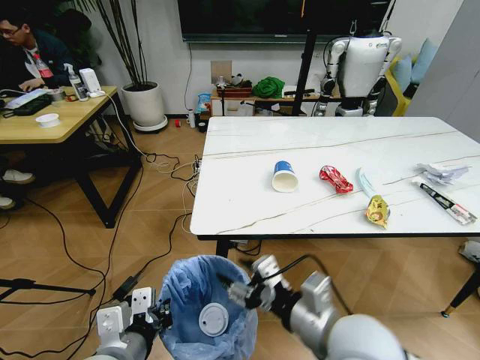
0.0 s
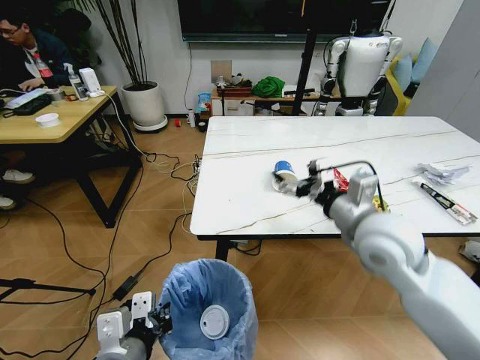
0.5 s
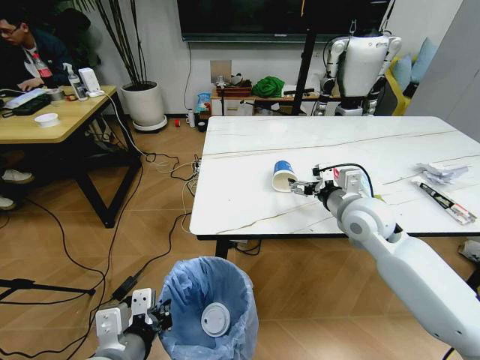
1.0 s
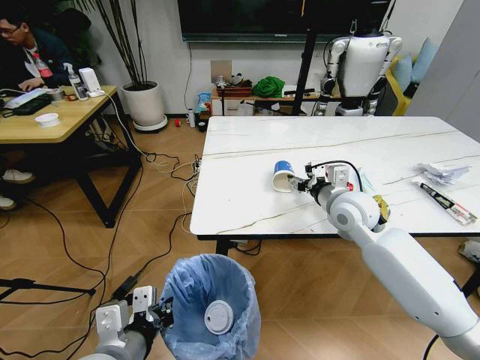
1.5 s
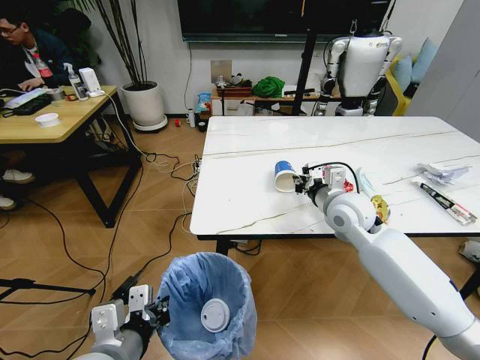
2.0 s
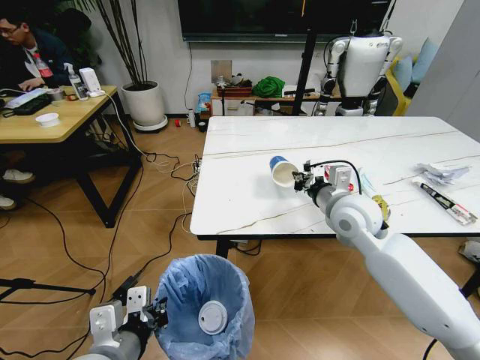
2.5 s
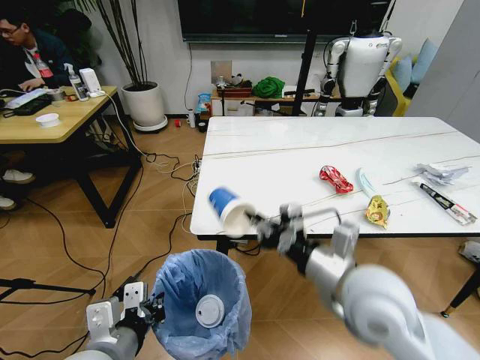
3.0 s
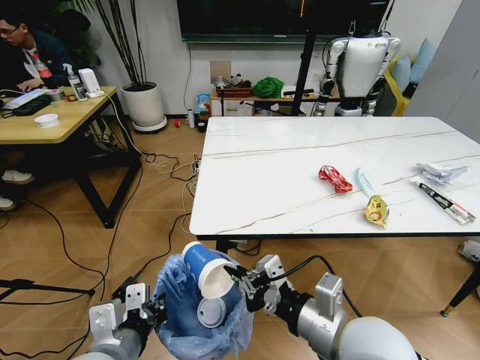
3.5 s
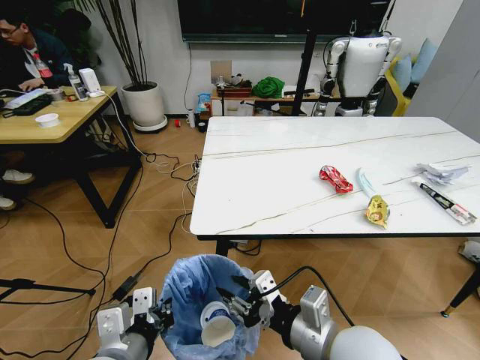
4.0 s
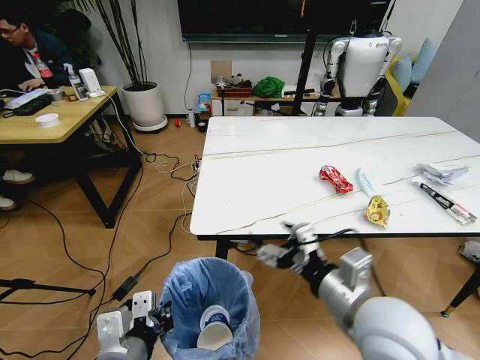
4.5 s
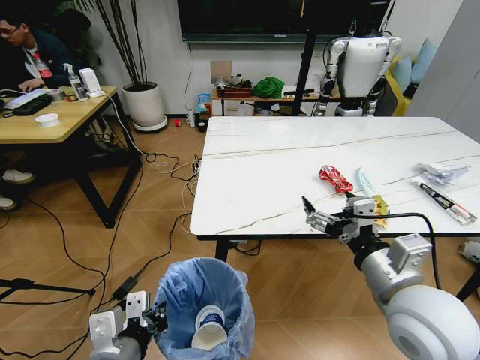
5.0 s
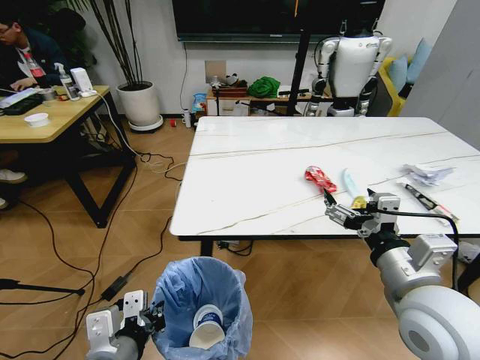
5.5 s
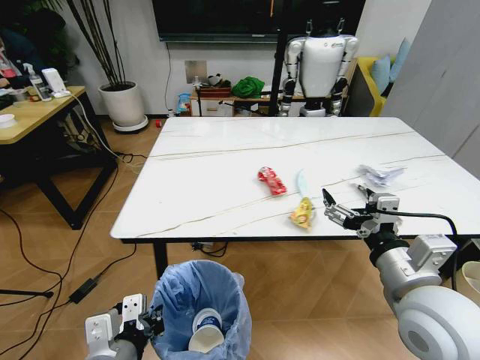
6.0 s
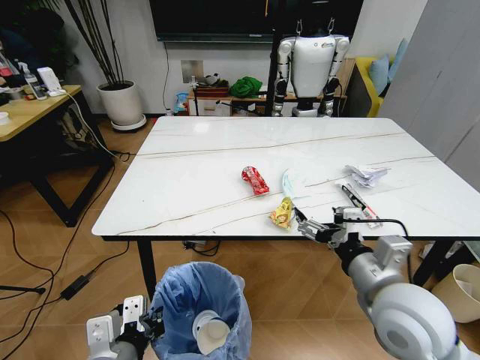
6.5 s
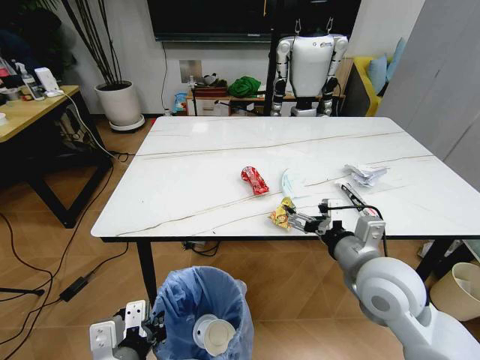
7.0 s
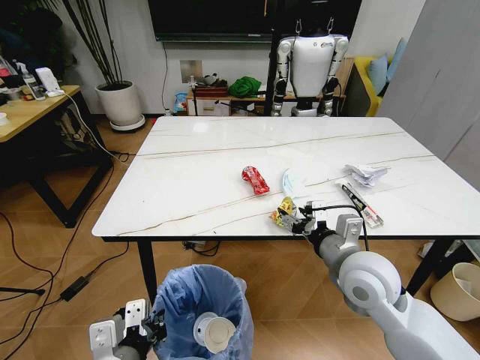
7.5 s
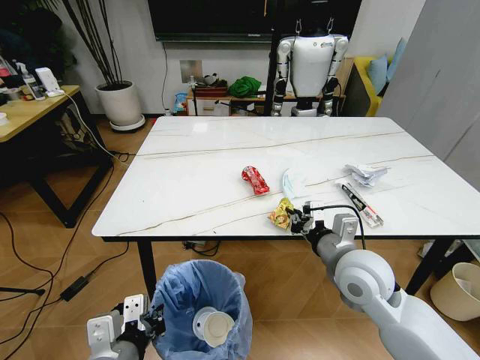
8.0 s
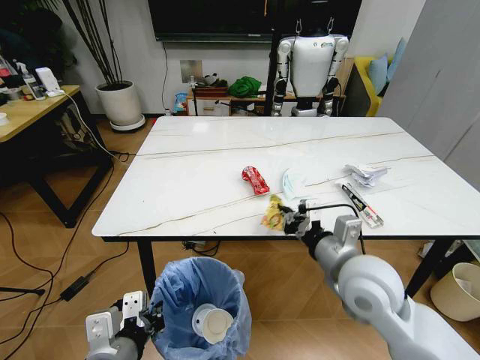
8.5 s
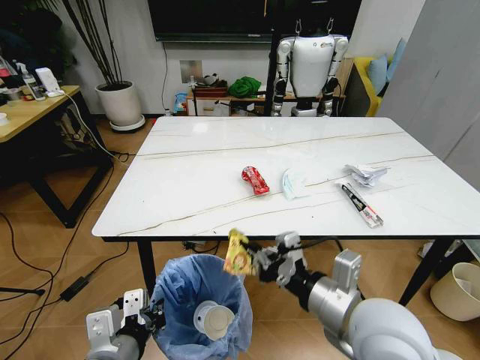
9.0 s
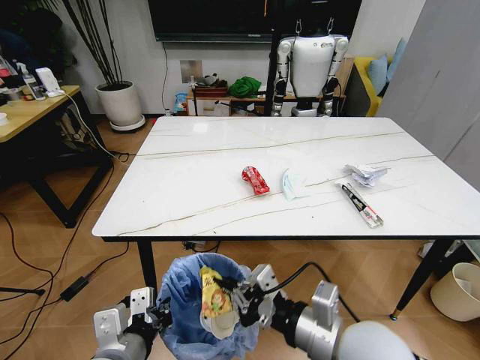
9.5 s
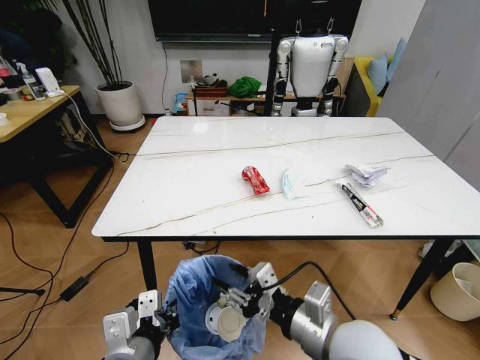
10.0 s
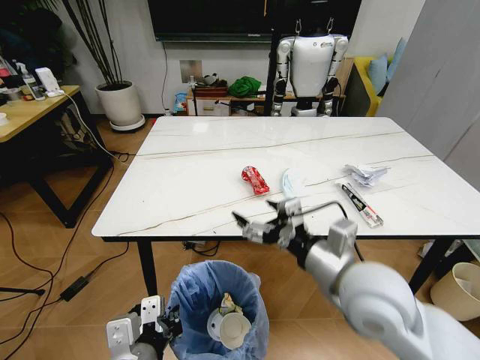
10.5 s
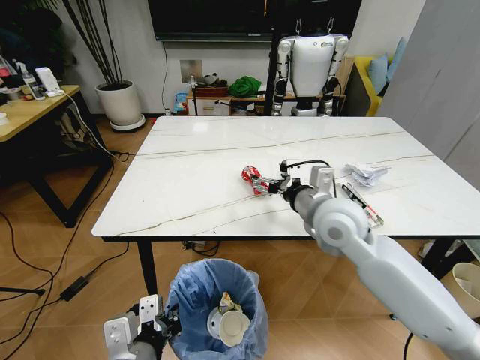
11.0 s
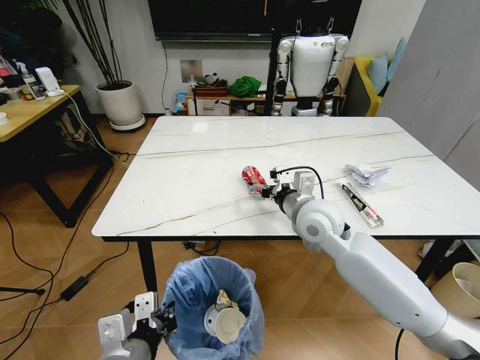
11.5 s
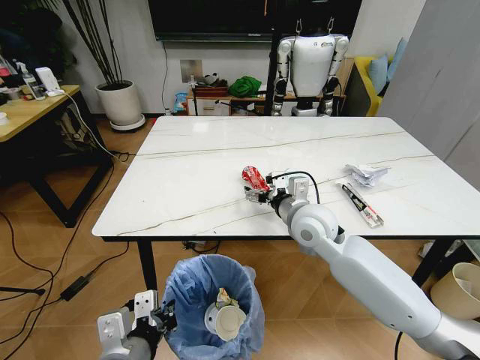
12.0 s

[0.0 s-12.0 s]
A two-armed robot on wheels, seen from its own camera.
Task of the whole recording: Pick up the trash bin and place the trash from the table into it.
0.0 to 2.0 s: The right gripper goes approximately 25 cm forward, and closes its fingers.
2.0 to 4.0 s: The right gripper heads backward, covering roughly 25 cm.
4.0 to 6.0 s: The right gripper heads to the right and upward, covering roughly 10 cm, and opens its fingers.
6.0 to 8.0 s: The right gripper goes some 10 cm forward and downward, and closes up.
8.0 to 10.0 s: The right gripper shifts about 15 cm backward and to the left.
10.0 to 12.0 s: The right gripper travels forward by some 25 cm, and opens its fingers.

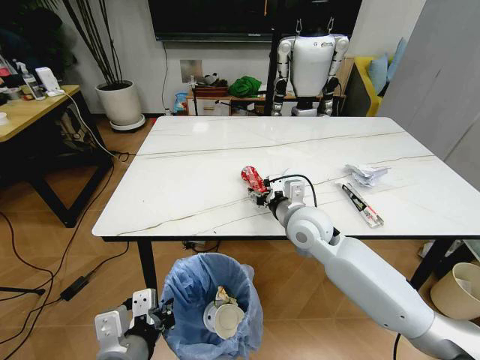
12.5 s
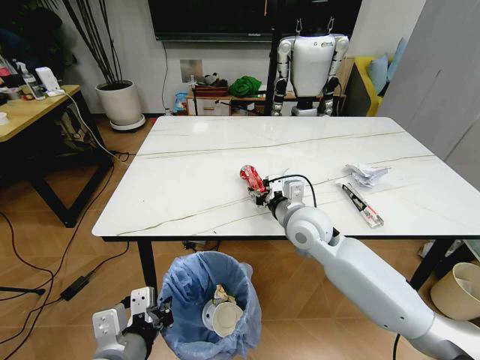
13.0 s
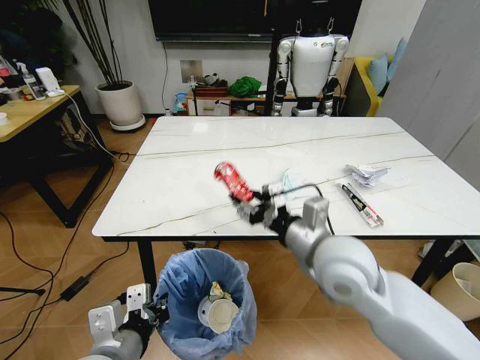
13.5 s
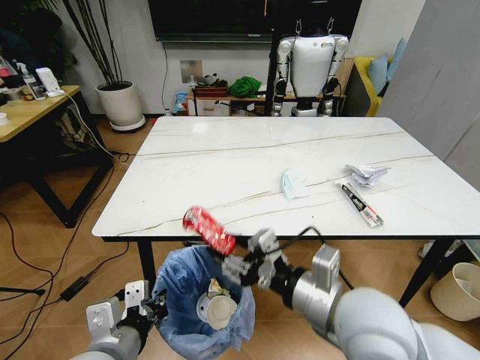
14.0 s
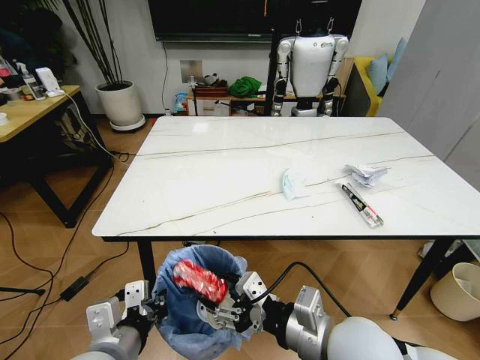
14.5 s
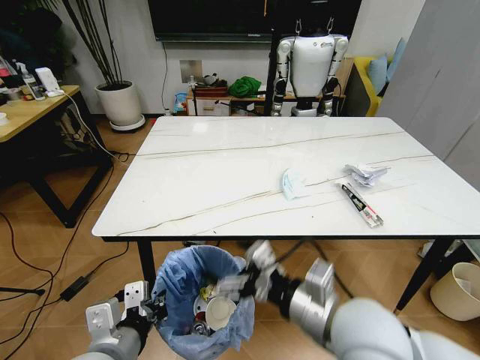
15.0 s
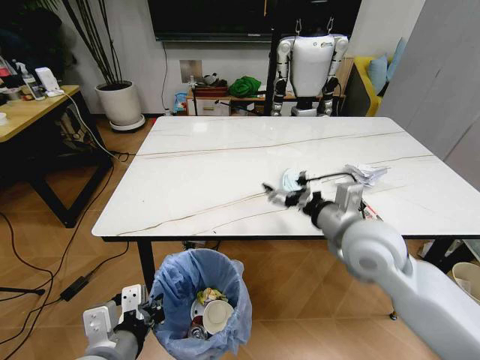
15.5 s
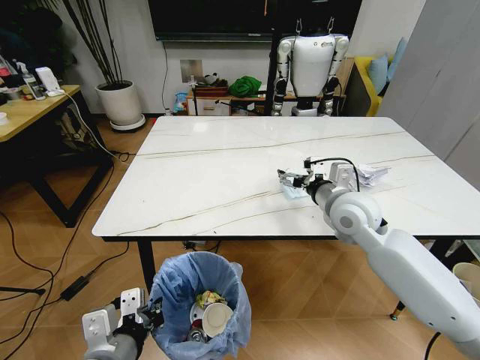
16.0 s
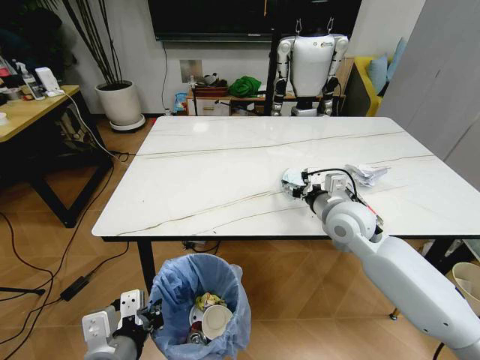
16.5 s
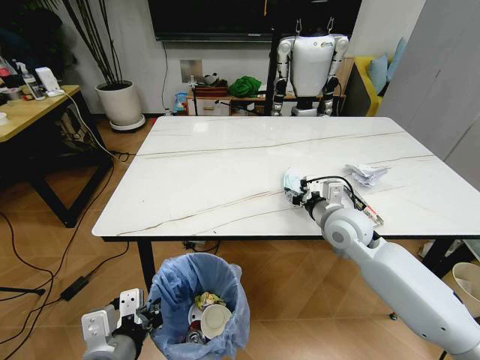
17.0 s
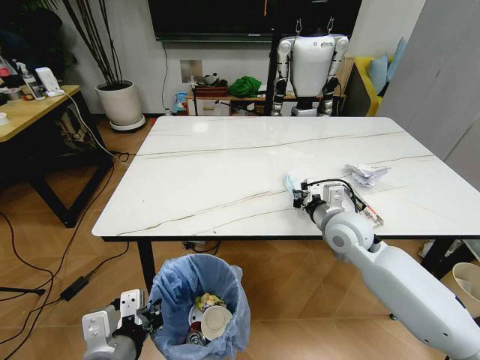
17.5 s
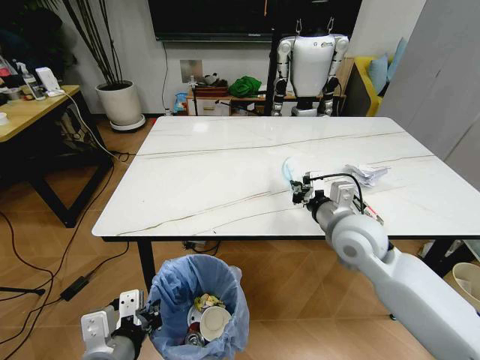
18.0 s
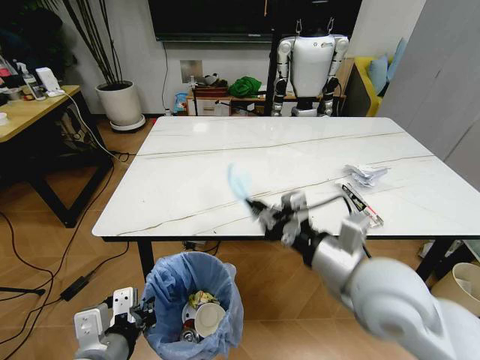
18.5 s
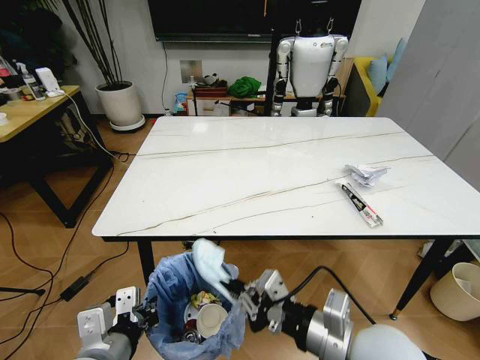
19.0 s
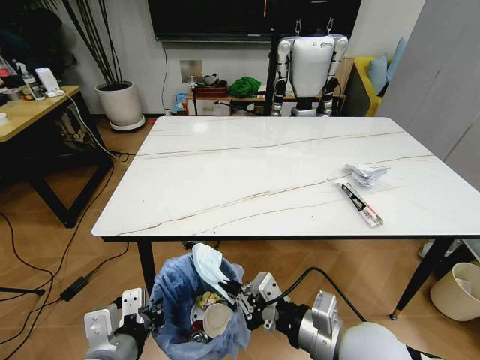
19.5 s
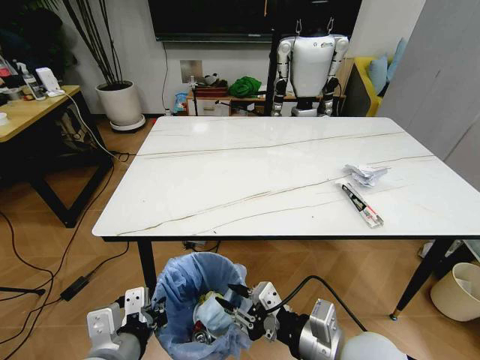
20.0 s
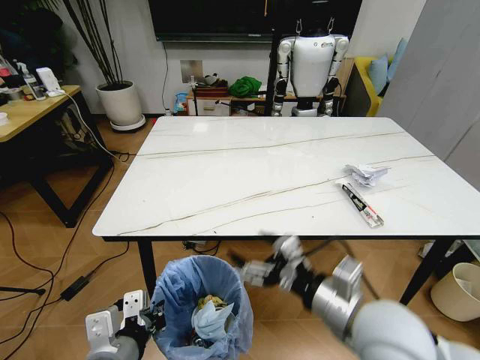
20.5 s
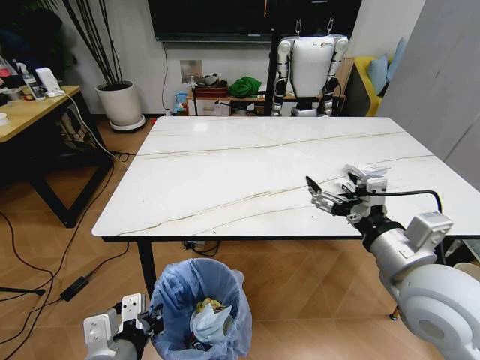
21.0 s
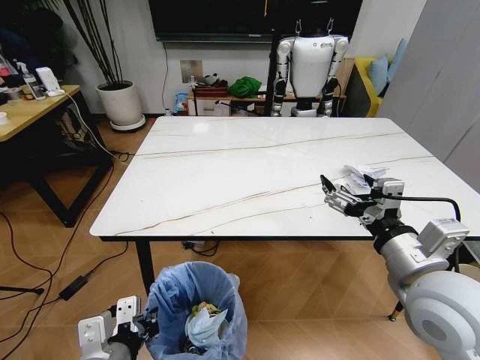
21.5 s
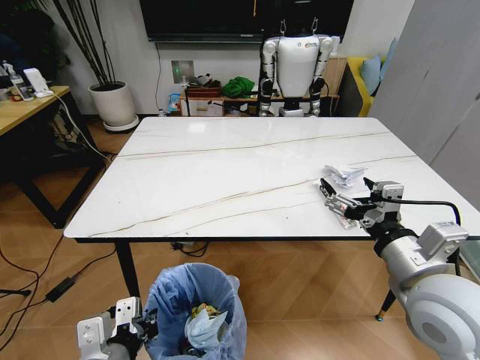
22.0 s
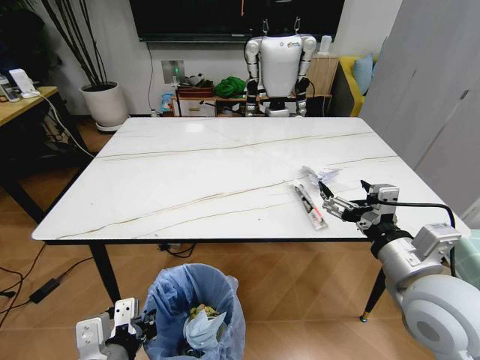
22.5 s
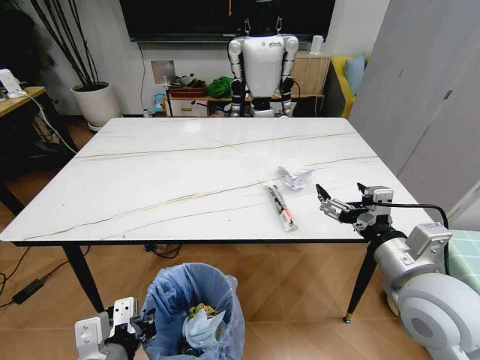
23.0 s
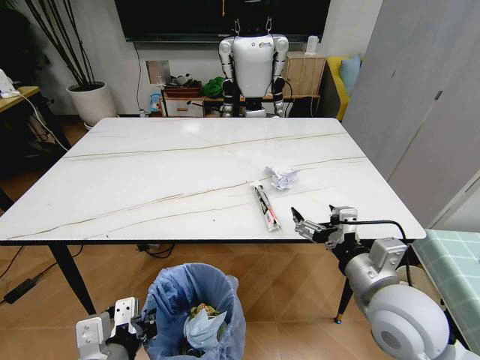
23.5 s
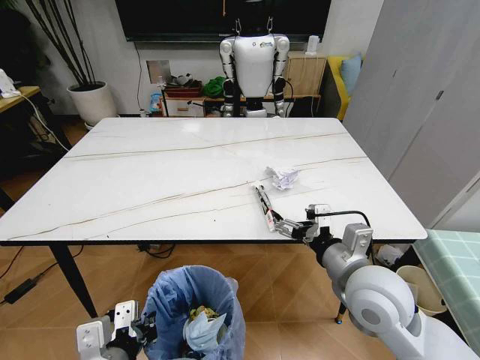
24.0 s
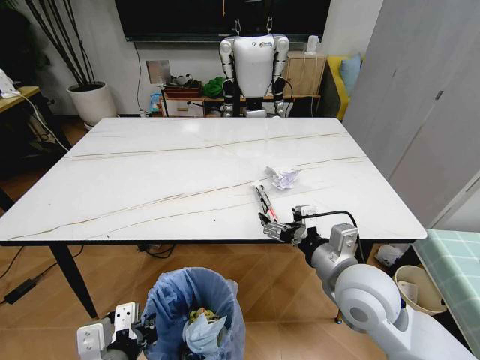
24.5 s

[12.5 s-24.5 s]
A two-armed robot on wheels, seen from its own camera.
Task of the whole recording: Pick up the trash bin and place the trash from the table into it.
12.5 to 14.5 s: The right gripper heads backward, covering about 25 cm.
14.5 to 16.5 s: The right gripper travels forward by approximately 25 cm.
16.5 to 18.5 s: The right gripper travels backward by roughly 20 cm, and closes.
18.5 to 20.5 s: The right gripper opens up.
20.5 to 22.5 s: The right gripper heads to the right, covering some 10 cm.
22.5 to 24.5 s: The right gripper travels to the left and downward by approximately 10 cm.

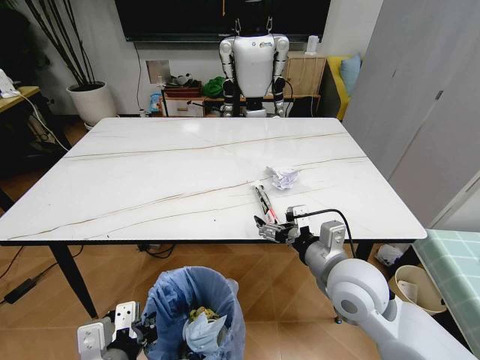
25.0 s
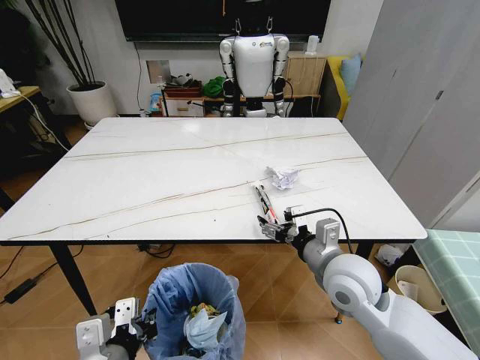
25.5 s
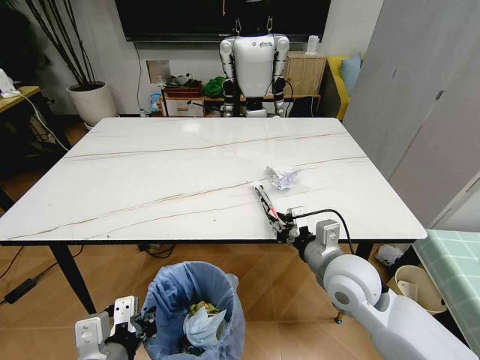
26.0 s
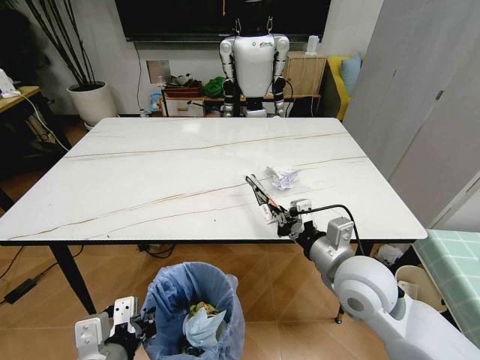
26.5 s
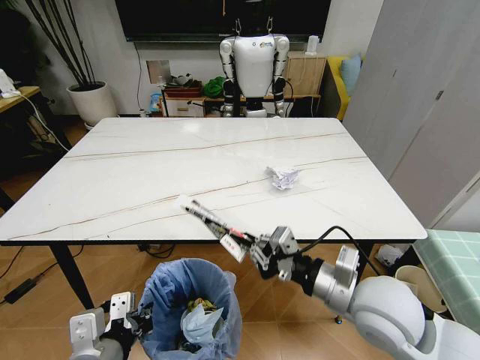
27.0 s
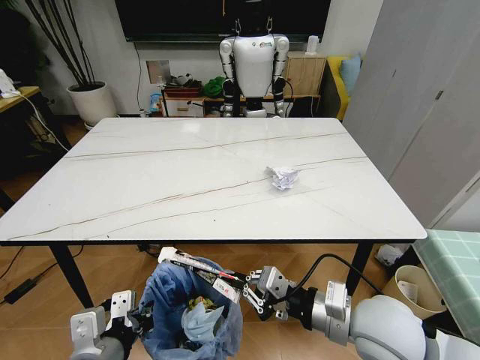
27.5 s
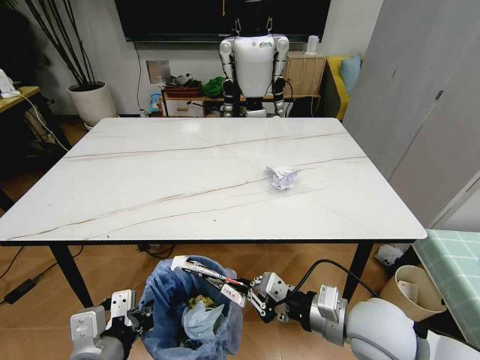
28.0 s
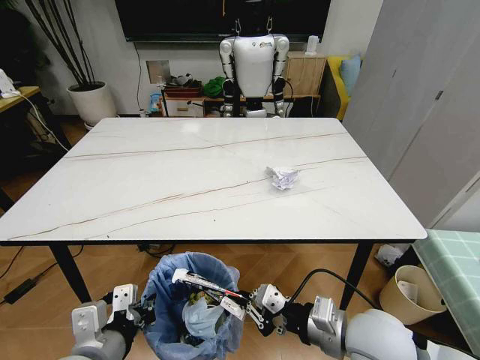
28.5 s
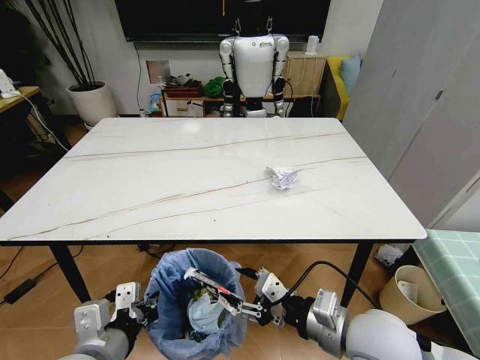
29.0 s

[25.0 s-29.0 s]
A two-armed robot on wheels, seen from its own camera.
Task of the whole recording: Pick up the trash bin and place the trash from the table into it.
25.0 to 27.0 s: The right gripper closes its fingers.
27.0 to 29.0 s: The right gripper moves backward, roughly 5 cm, and opens up.
